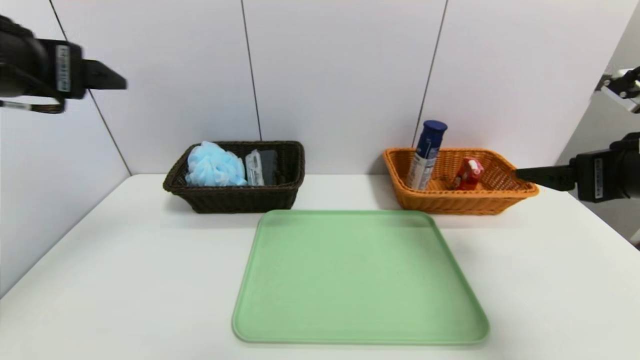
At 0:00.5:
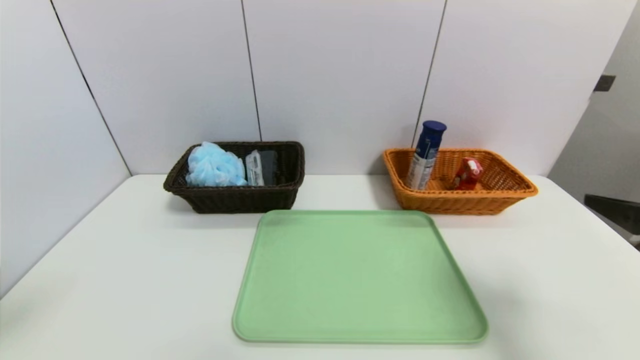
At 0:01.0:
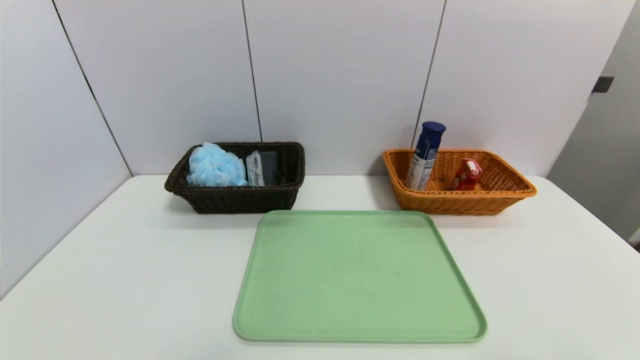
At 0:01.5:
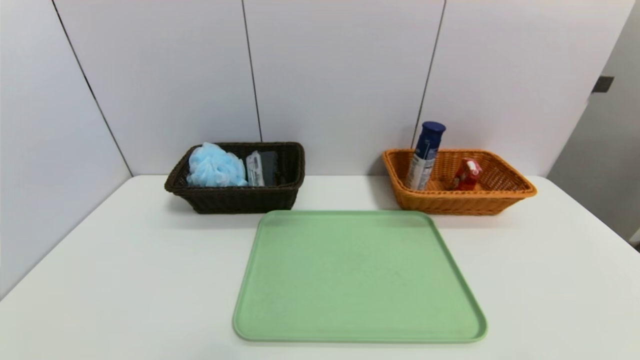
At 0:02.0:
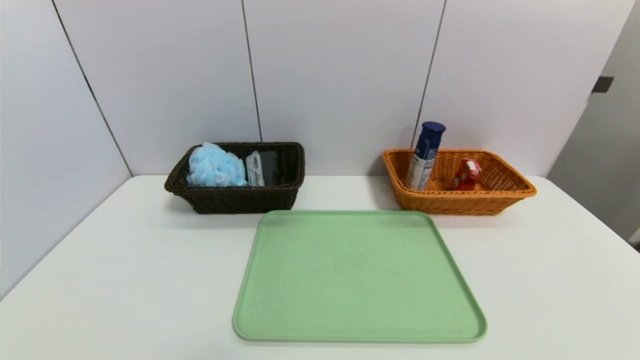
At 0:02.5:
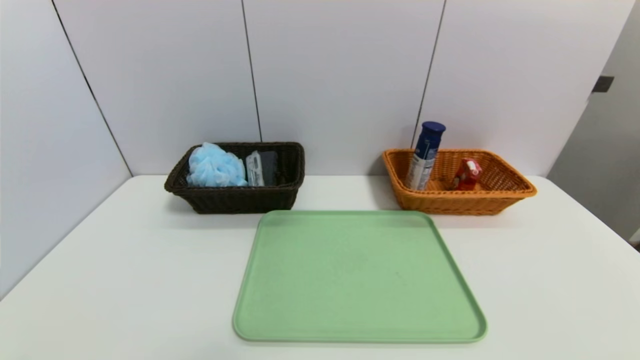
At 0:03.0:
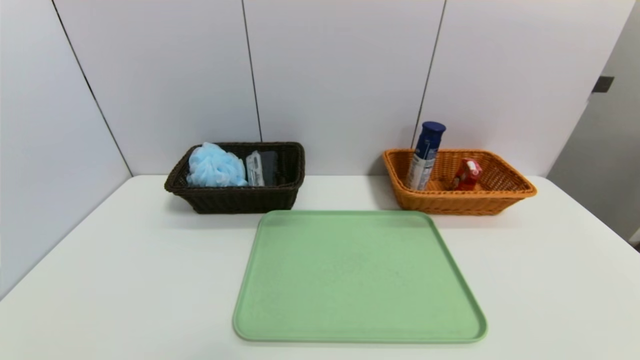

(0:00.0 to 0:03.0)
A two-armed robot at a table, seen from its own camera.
Task of the whole recording: place the food in the right basket with the right gripper, and place the non food items in the left basket with the left gripper.
0:00.0 - 0:01.5: The right gripper moves backward, about 25 cm; the left gripper heads backward and downward, covering approximately 35 cm.

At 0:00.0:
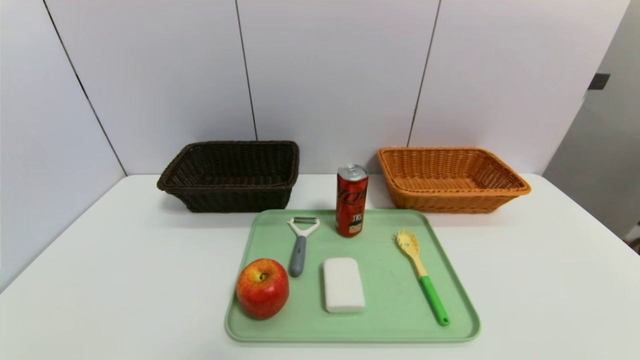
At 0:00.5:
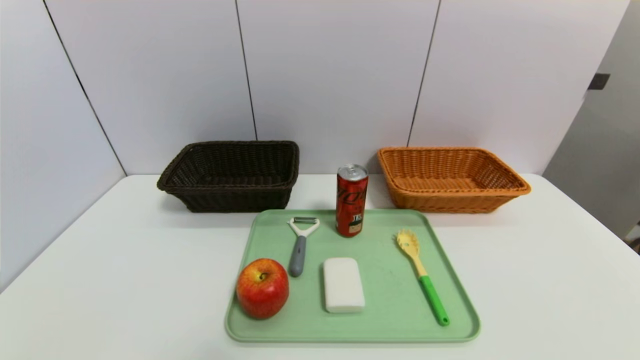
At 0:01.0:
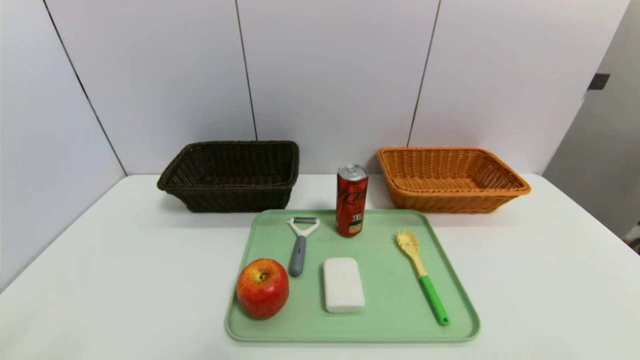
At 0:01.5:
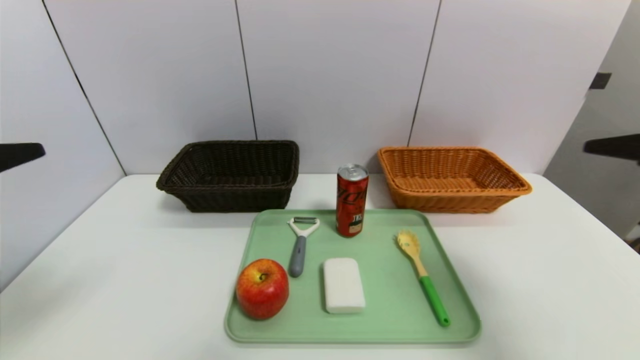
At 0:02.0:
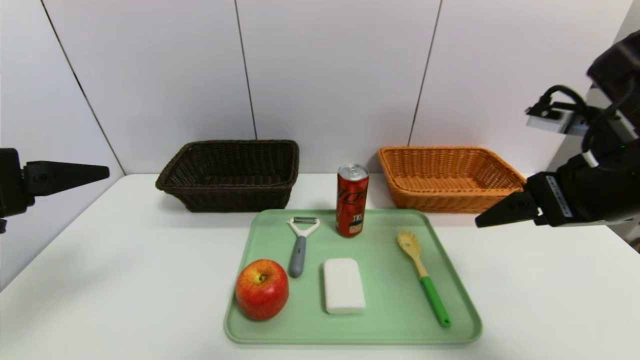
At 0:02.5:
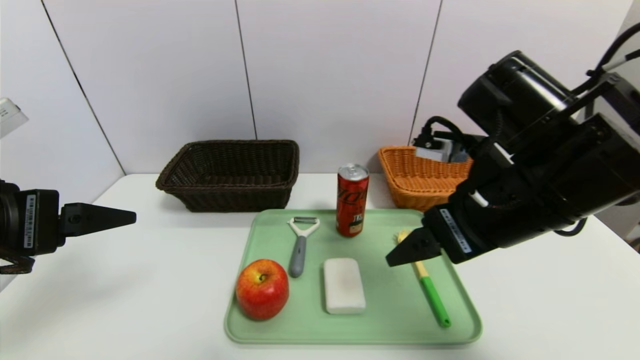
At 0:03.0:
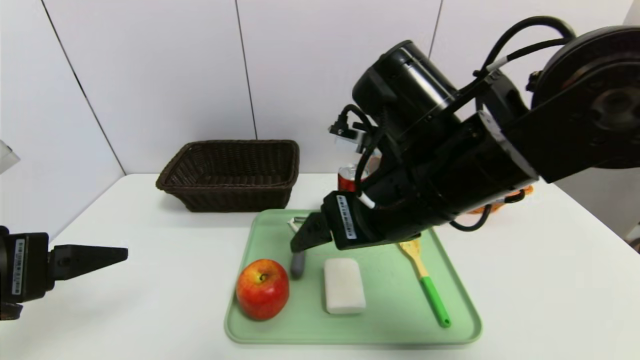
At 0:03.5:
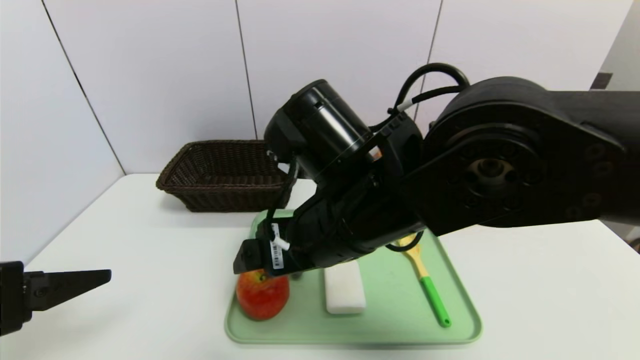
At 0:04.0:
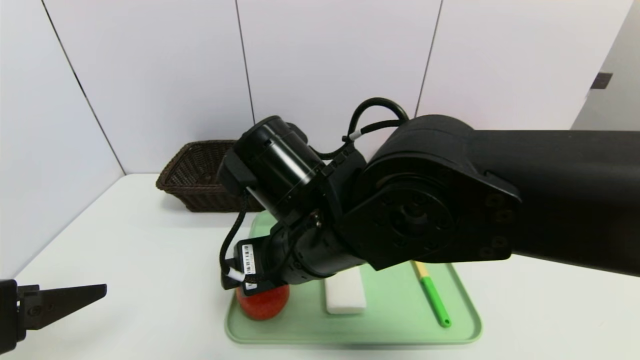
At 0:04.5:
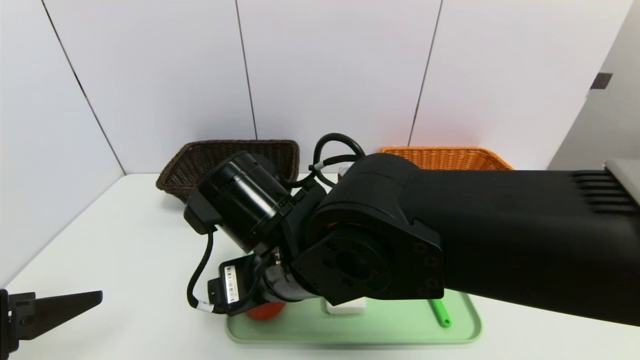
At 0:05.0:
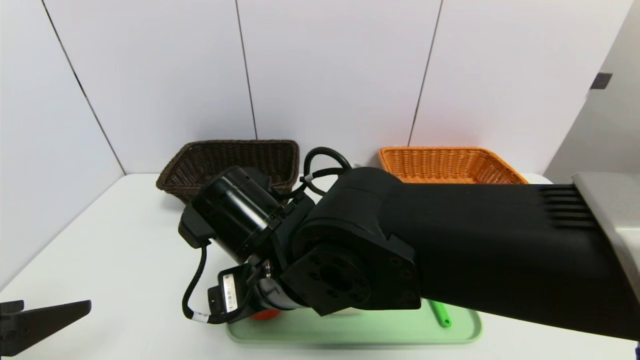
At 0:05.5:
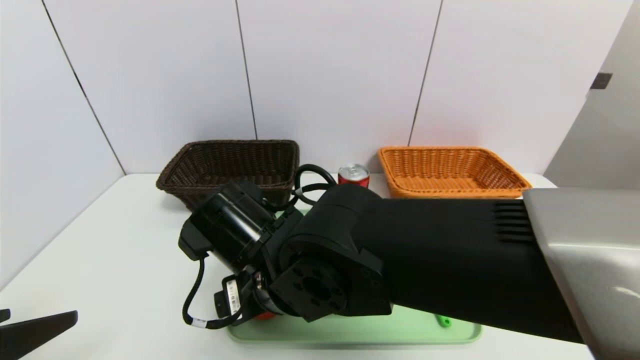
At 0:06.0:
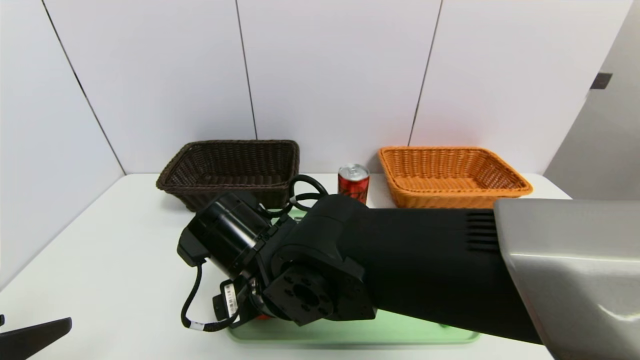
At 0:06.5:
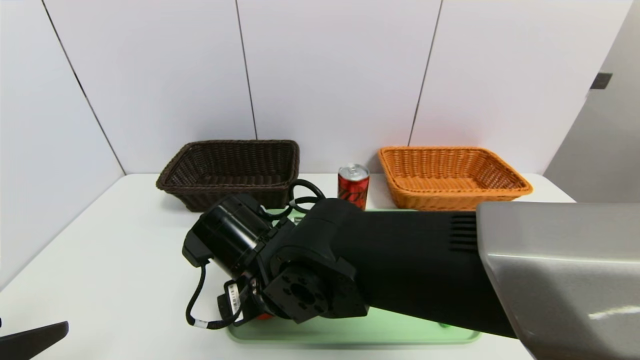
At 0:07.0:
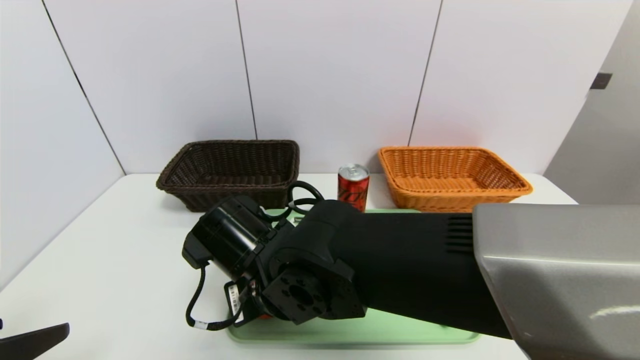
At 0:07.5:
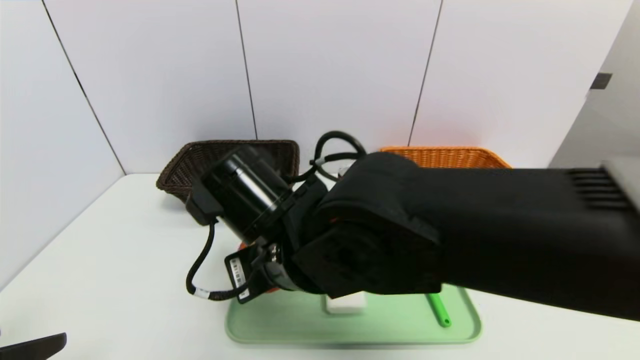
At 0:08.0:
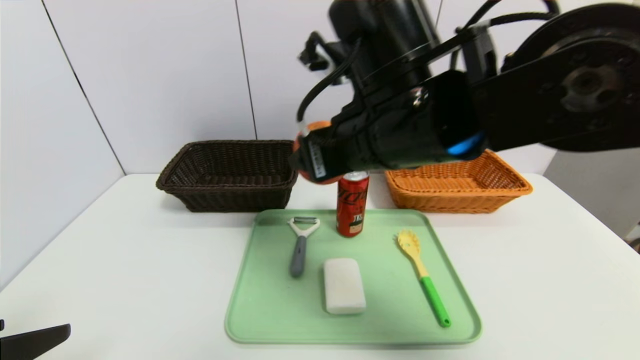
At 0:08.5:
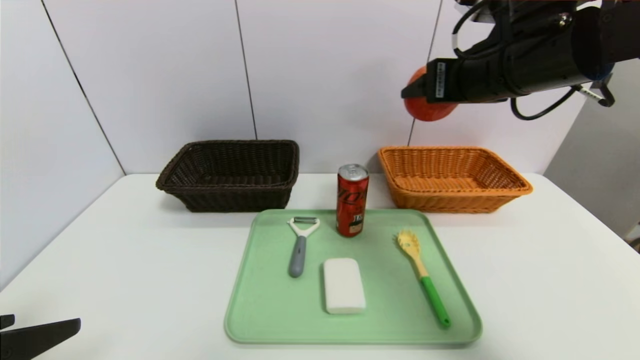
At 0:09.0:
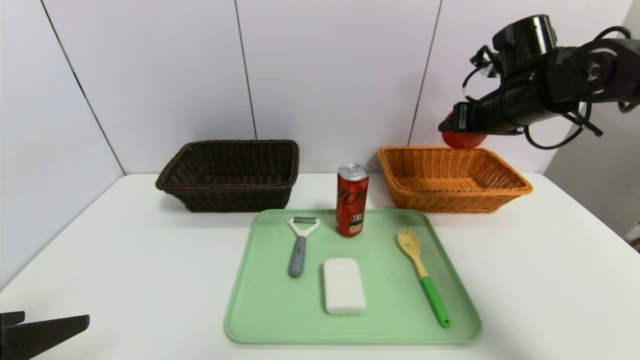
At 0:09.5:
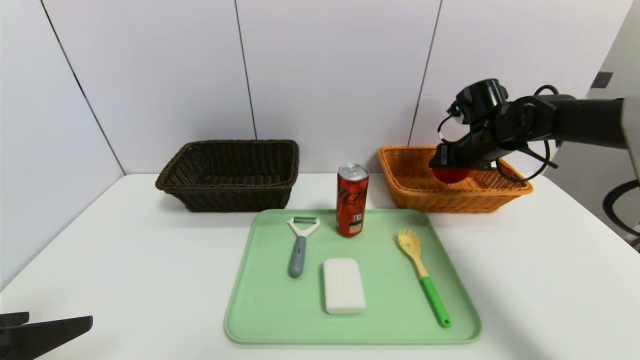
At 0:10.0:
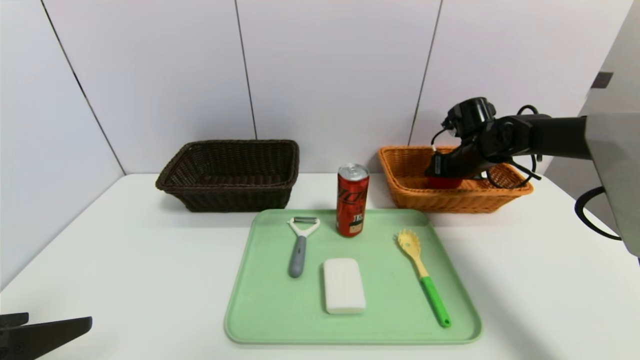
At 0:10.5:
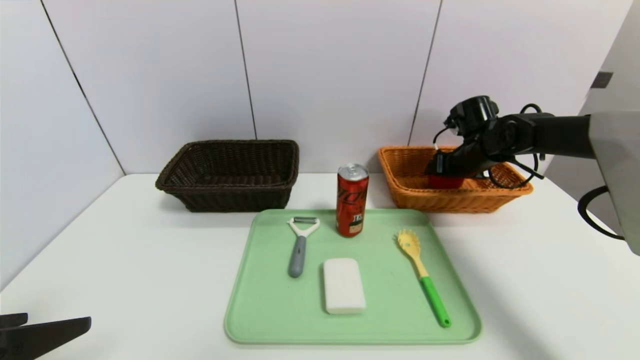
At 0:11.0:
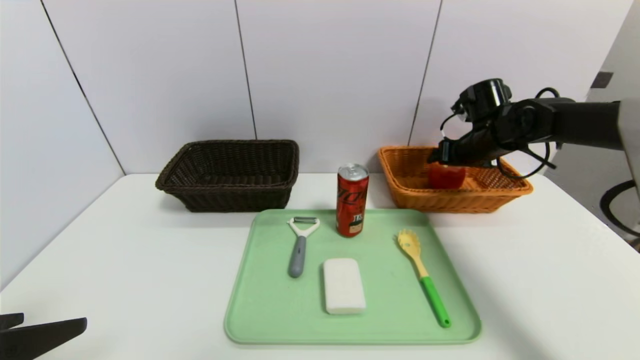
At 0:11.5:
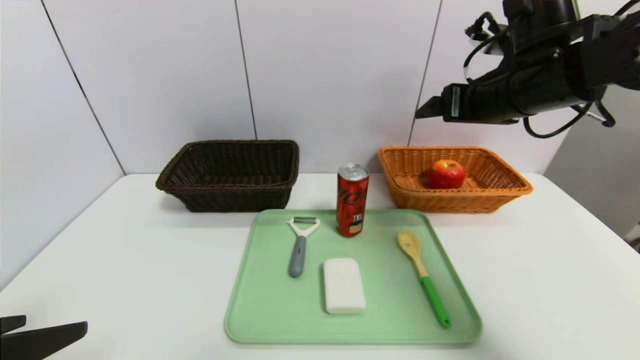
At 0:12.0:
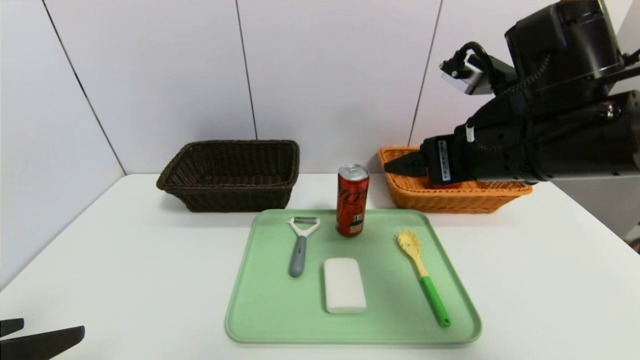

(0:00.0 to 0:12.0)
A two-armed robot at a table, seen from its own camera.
Task of the whole recording: place the food in the right basket with the right gripper, and place the non food items in the left basket with the left gripper.
Step, 0:00.0 - 0:11.0: Grasp the apple and put it in the right basket.
0:00.0 - 0:02.0: The right gripper is displaced forward and upward by roughly 30 cm. The left gripper travels upward and forward by approximately 25 cm.
0:02.0 - 0:04.0: The right gripper shifts about 25 cm to the left. The left gripper heads downward, covering roughly 5 cm.
0:04.0 - 0:06.0: The right gripper shifts roughly 5 cm downward.
0:06.0 - 0:08.0: The right gripper heads upward and to the right, covering approximately 20 cm.
0:08.0 - 0:10.0: The right gripper shifts roughly 35 cm to the right, forward and downward.
0:10.0 - 0:12.0: The right gripper moves backward, upward and to the left, approximately 30 cm.

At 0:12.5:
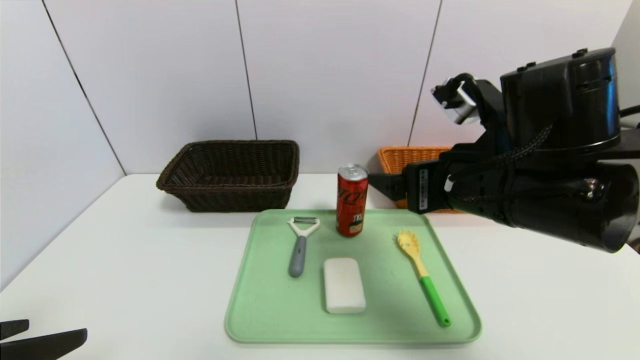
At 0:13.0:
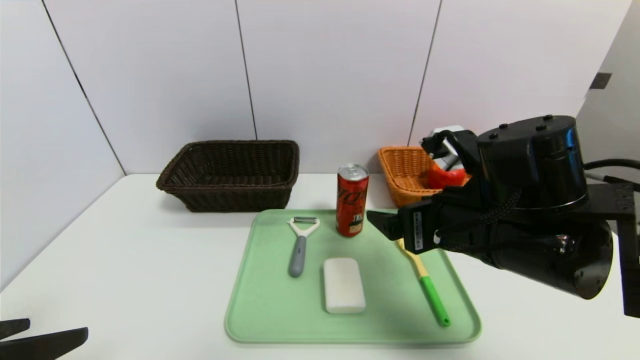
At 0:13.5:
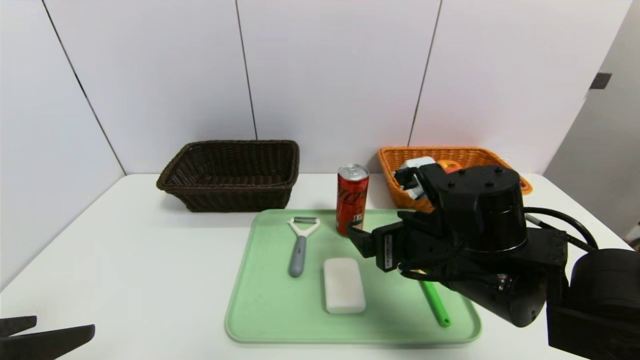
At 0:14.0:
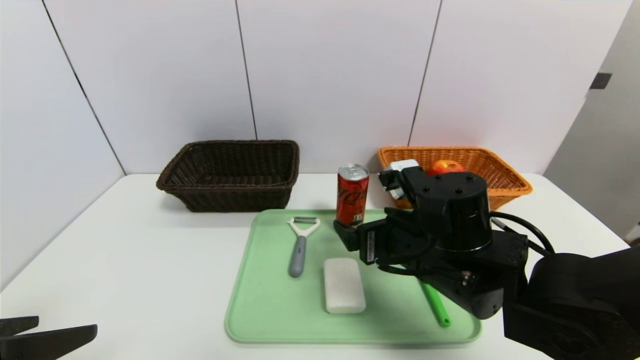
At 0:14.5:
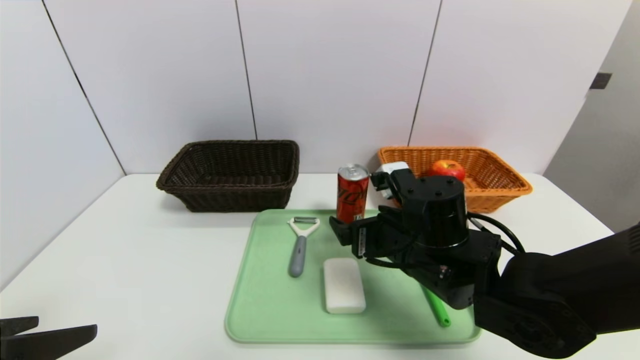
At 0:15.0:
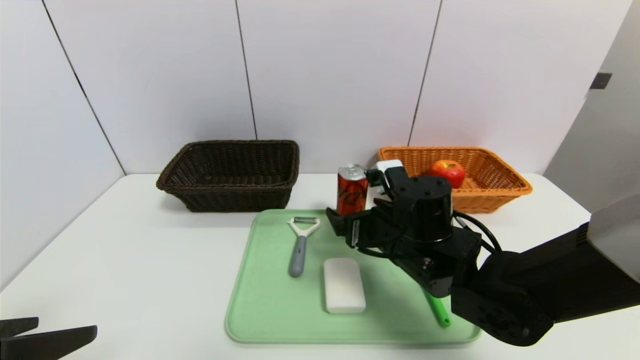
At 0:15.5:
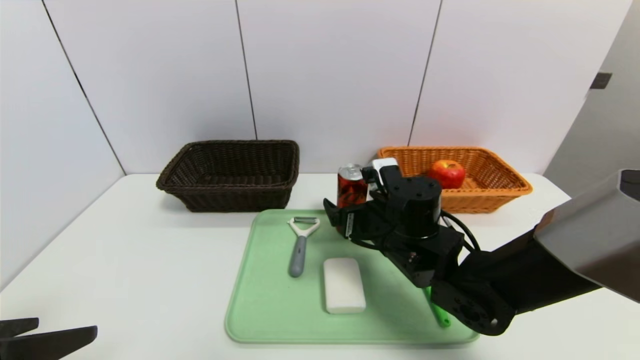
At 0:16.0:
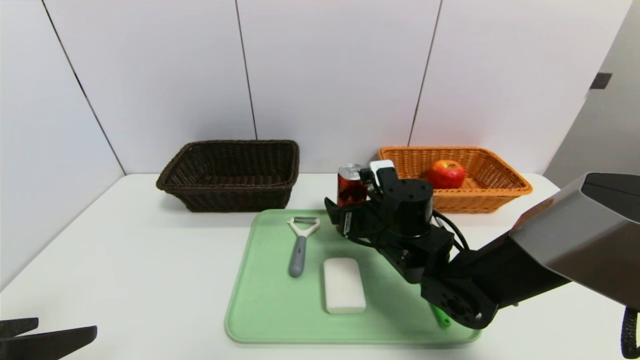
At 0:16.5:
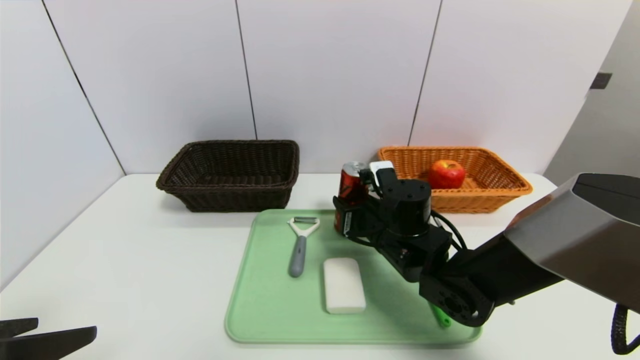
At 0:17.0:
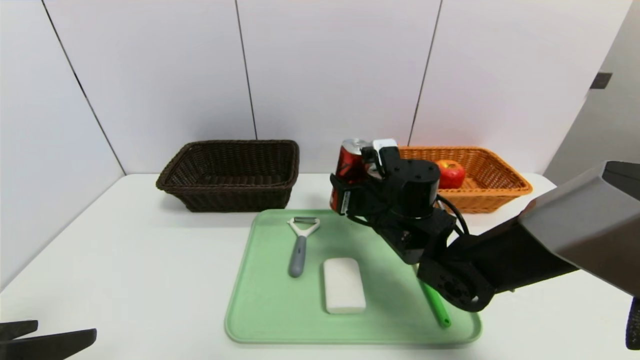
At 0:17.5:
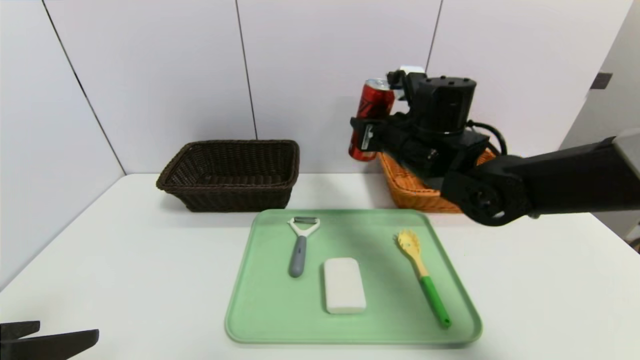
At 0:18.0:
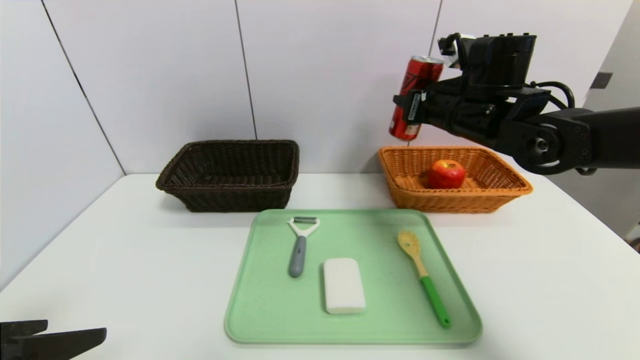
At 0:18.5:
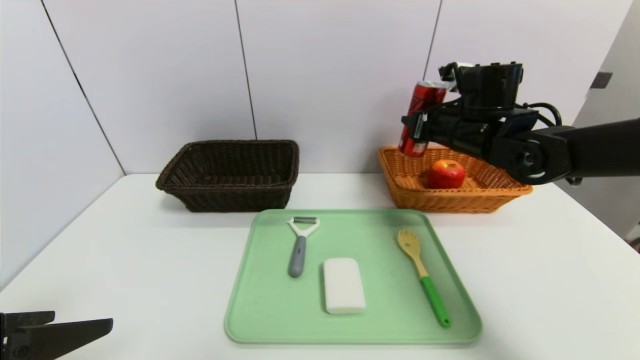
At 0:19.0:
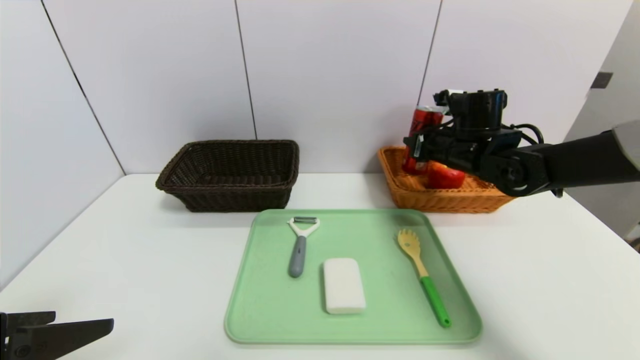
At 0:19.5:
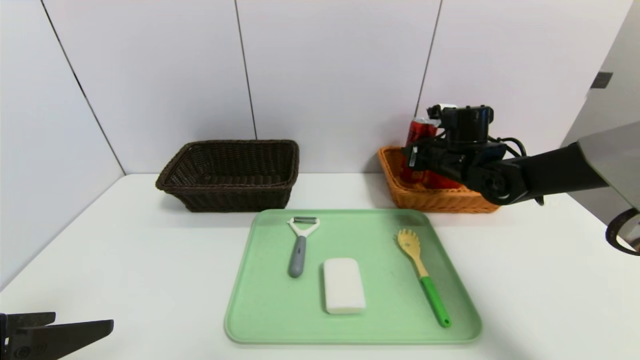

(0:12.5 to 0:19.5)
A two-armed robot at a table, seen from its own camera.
Task of the whole recording: place the food in the right basket with the right gripper, and place the non food items in the left basket with the left gripper.
0:12.5 - 0:14.5: The right gripper moves downward, roughly 10 cm.
0:14.5 - 0:16.0: The right gripper shifts about 5 cm forward.
0:16.0 - 0:17.5: The right gripper travels upward by approximately 10 cm, and closes.
0:17.5 - 0:19.5: The right gripper travels to the right, forward and downward by roughly 15 cm.
